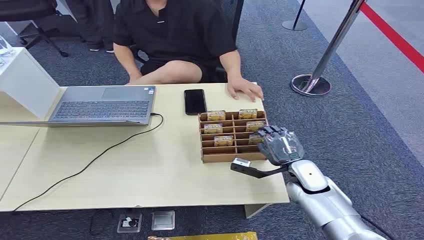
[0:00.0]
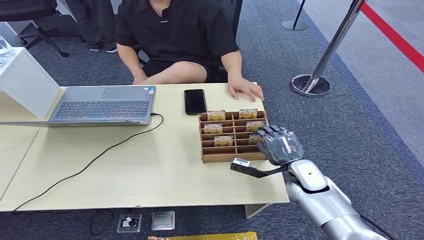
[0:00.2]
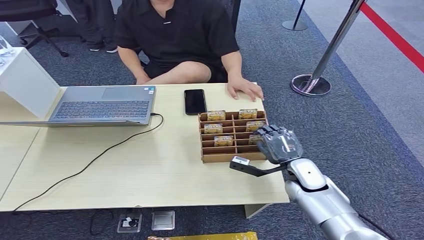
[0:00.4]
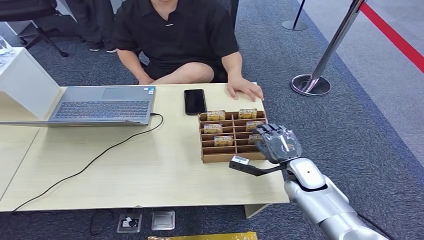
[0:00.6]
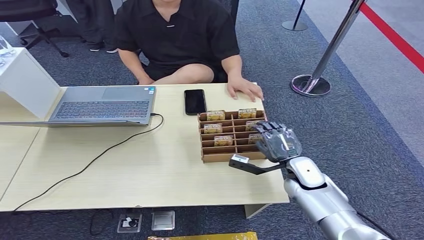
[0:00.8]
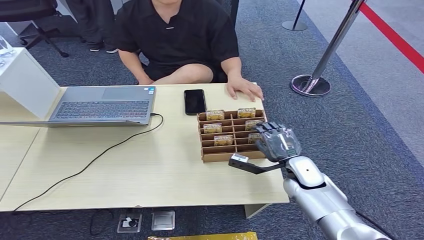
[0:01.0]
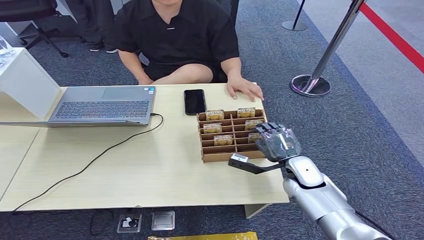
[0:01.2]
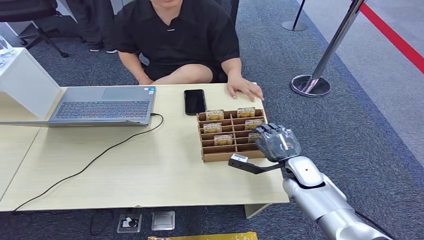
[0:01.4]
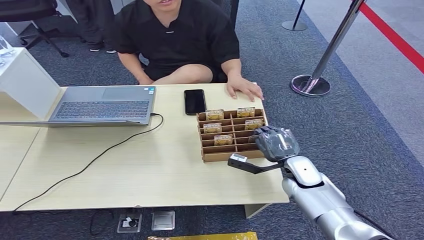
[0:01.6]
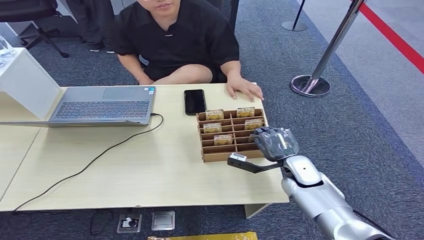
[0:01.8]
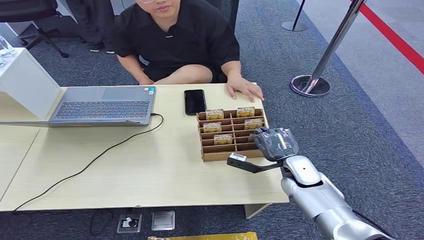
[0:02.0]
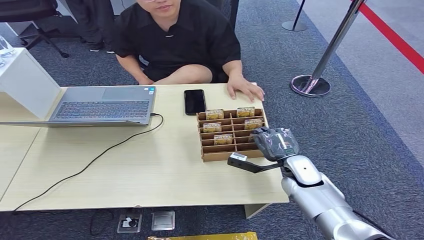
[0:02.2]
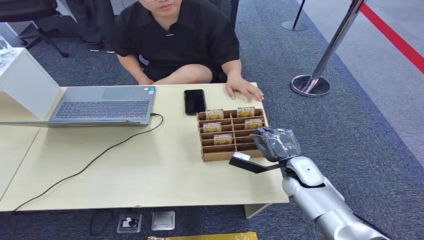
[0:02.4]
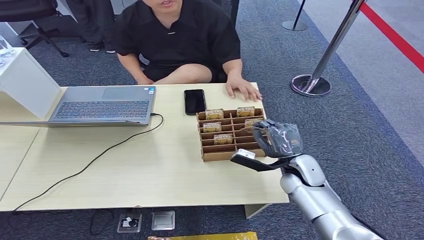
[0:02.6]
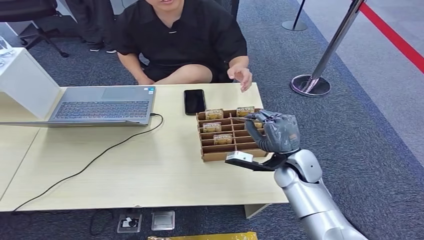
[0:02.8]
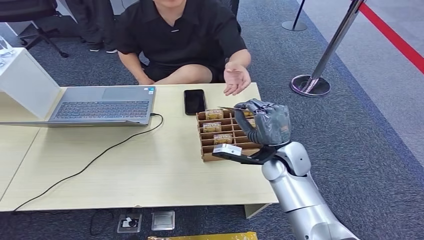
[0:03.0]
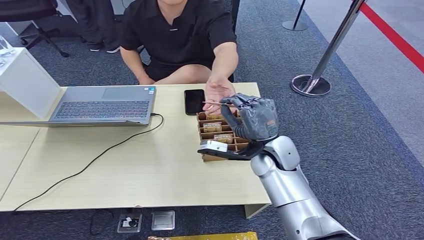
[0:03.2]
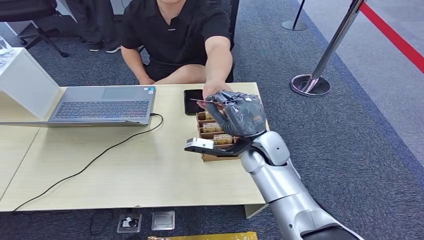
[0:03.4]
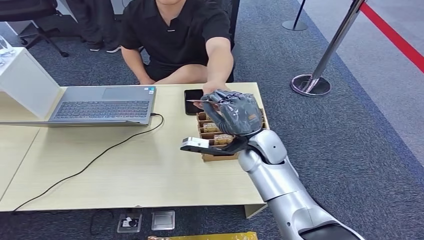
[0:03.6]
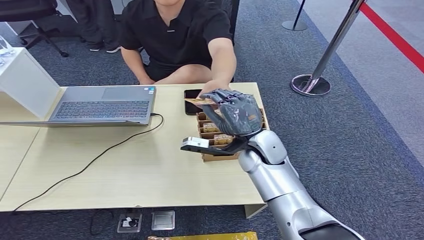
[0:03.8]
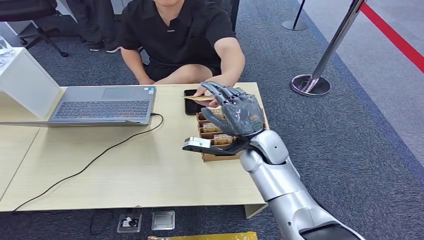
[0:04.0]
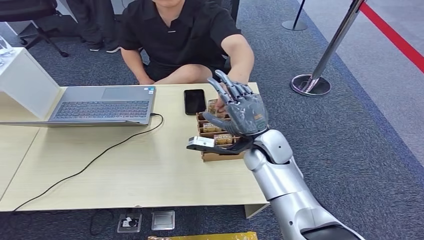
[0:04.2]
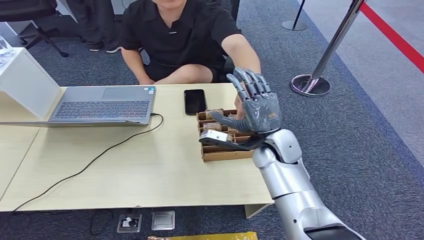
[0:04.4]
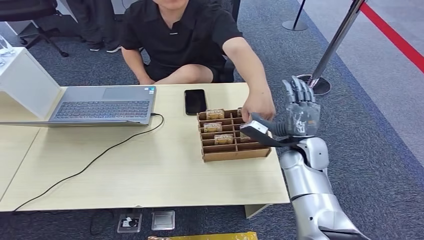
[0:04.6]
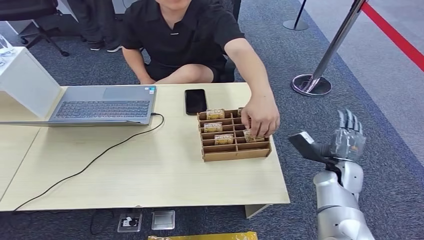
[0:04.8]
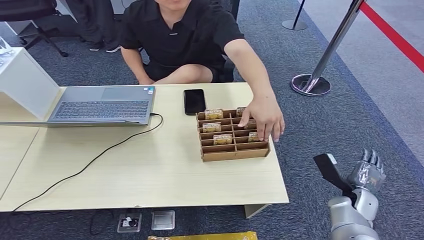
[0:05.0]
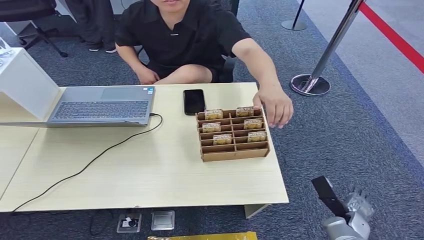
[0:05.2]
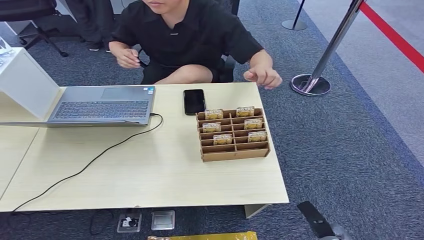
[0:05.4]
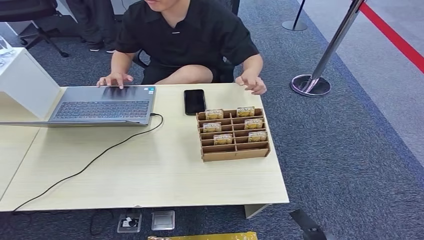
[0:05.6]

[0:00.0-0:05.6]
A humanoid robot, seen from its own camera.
Step, 0:00.0 to 0:02.4: Pick up the room card from the card holder.
Step, 0:02.8 to 0:05.6: Hand the room card to the target.
0:01.4 to 0:02.8: The right hand heads upward, covering about 5 cm.
0:02.8 to 0:04.2: The right hand travels to the left and upward by roughly 10 cm.
0:04.2 to 0:05.6: The right hand moves downward, backward and to the right, some 40 cm.
